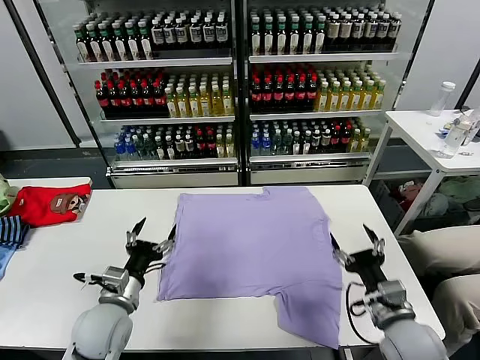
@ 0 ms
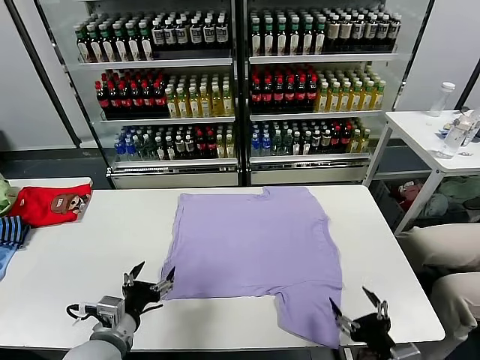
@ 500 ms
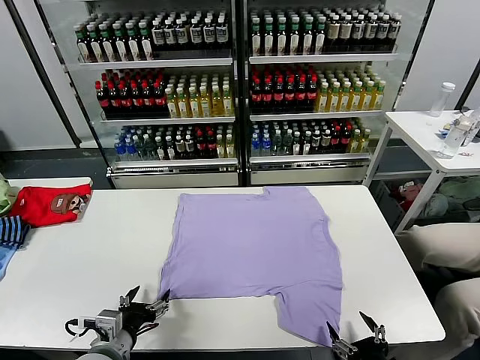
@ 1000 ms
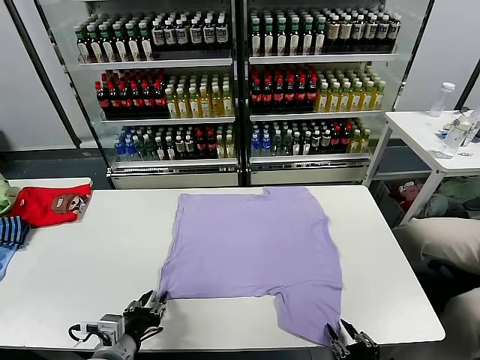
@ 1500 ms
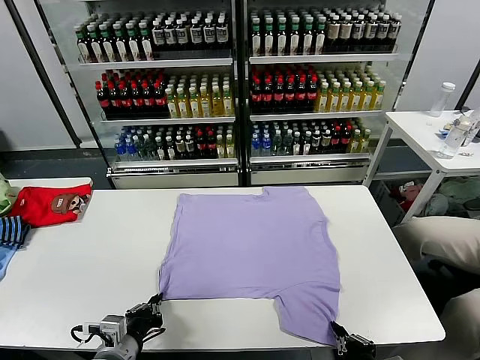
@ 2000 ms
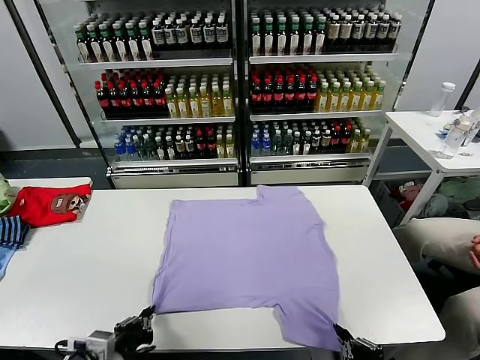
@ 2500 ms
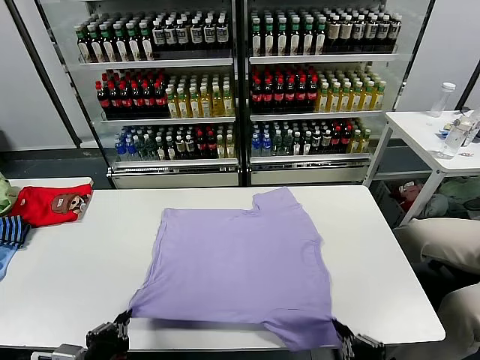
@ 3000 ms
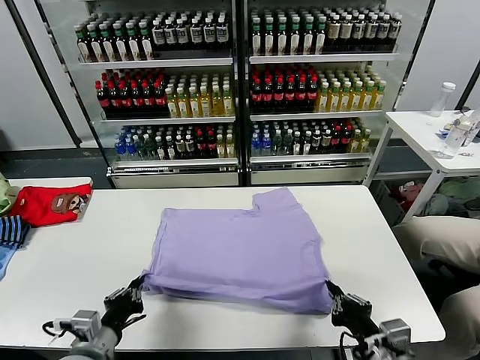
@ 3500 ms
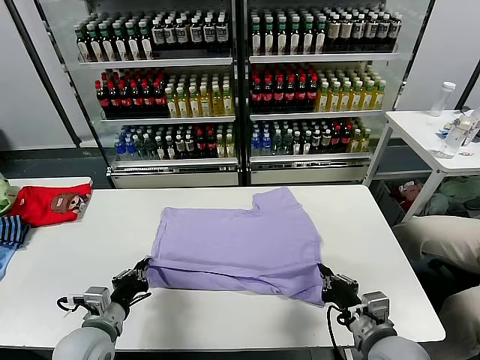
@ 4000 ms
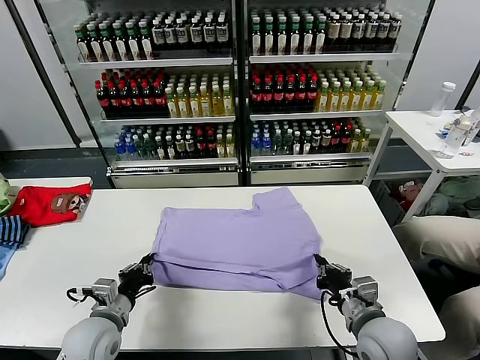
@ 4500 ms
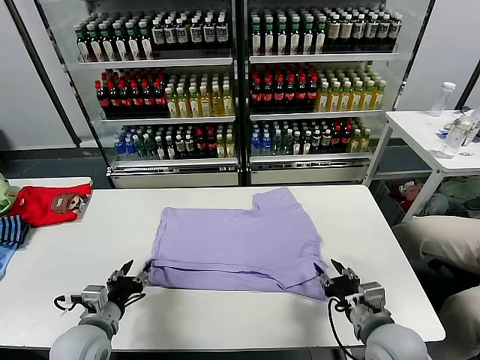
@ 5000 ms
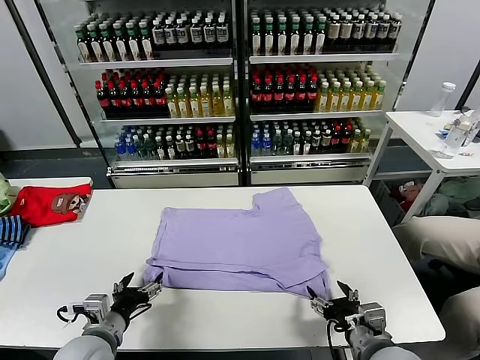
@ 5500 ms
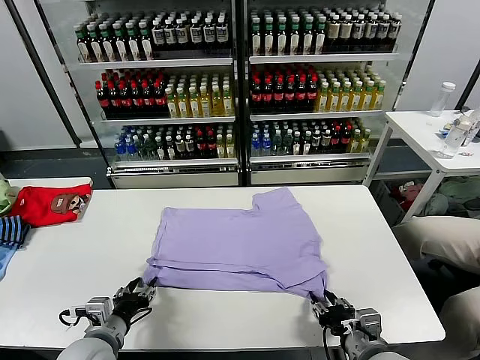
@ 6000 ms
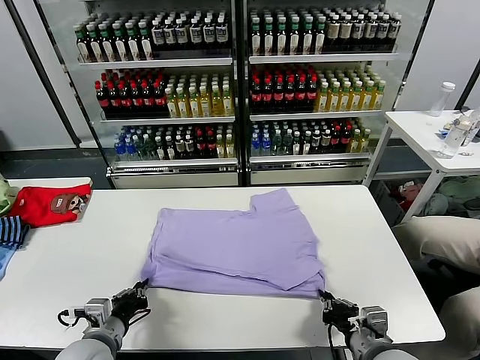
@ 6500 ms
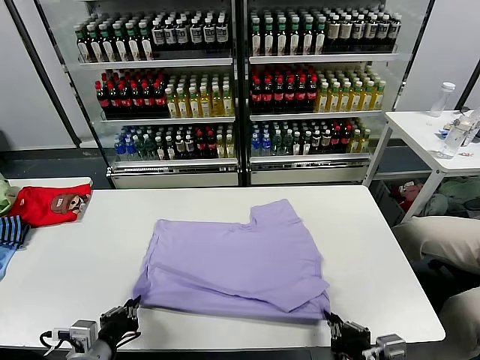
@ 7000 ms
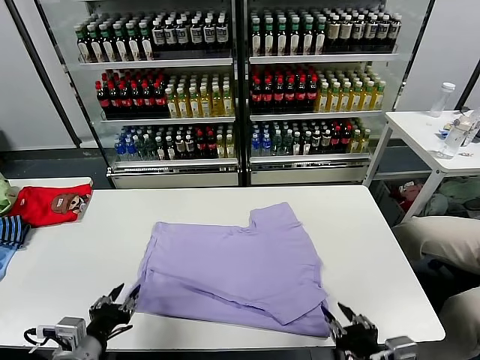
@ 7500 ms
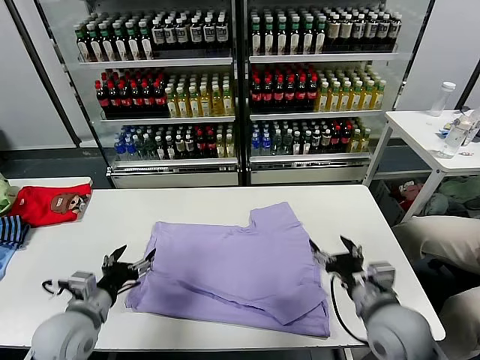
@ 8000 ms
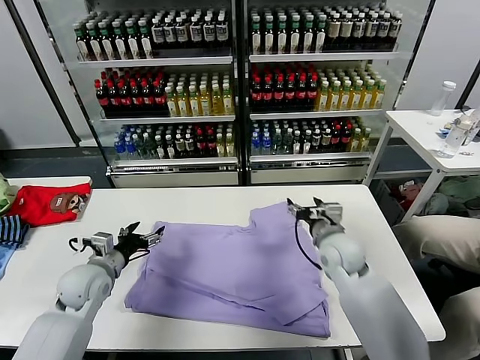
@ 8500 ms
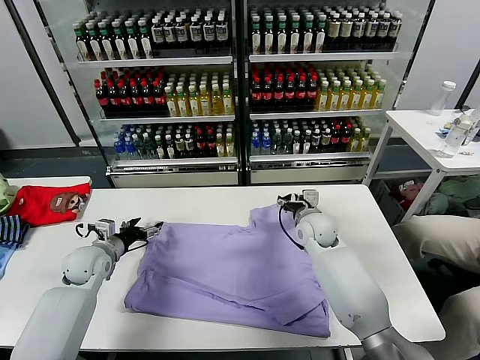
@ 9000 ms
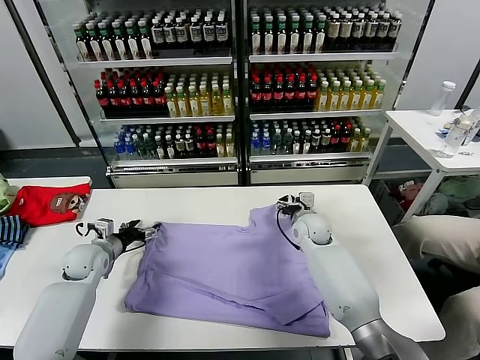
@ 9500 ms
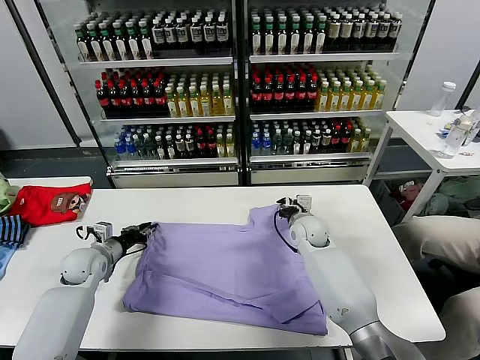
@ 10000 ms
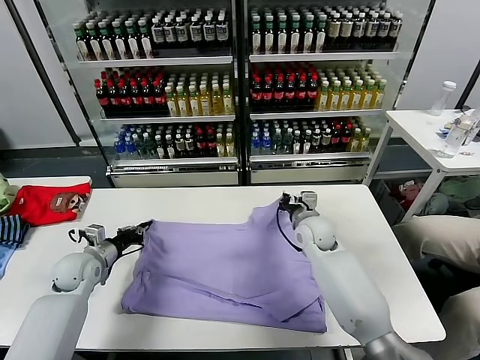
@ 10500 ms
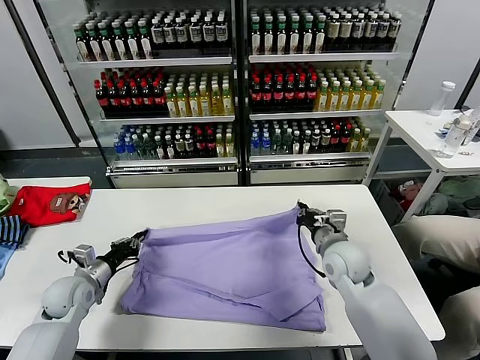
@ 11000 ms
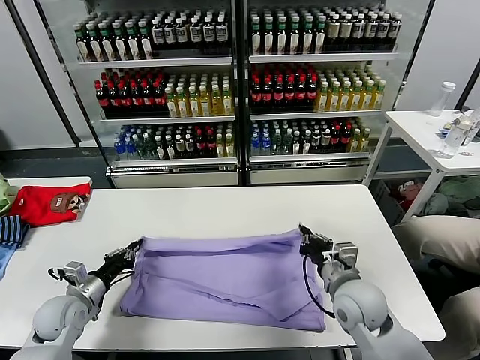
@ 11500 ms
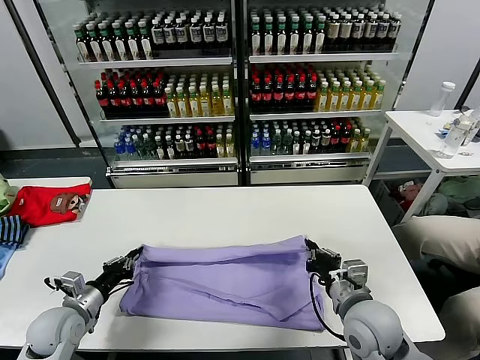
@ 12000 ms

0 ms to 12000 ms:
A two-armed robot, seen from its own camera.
Task of the whole recording: fold and organize the clothes.
Step, 0 ms to 2000 ms: use both grippers simultaneously to clamp the lower edge of the clothing fabric.
Step, 2500 ms to 5000 ms: use both grippers to drag the lower edge of the fabric forward and fold it over the upper edge.
Step, 5500 ms to 7500 ms: Drag the clothes downward with both gripper.
Step, 8000 ms to 10000 ms: use both grippers simultaneously to clamp the upper edge of the clothing fabric.
2000 ms to 4000 ms: The right gripper heads forward, covering about 10 cm. Meanwhile the left gripper shifts some 5 cm forward.
4000 ms to 6000 ms: The left gripper opens its fingers, while the right gripper opens, then closes once more.
6000 ms to 8000 ms: The left gripper shifts by approximately 5 cm, and opens up. Meanwhile the right gripper is displaced forward and upward by about 10 cm, and opens.
8000 ms to 10000 ms: The left gripper shifts some 20 cm forward and to the left, and closes, while the right gripper is displaced forward by about 25 cm, and closes.
10000 ms to 12000 ms: The right gripper goes roughly 25 cm backward, while the left gripper heads backward, covering roughly 15 cm.

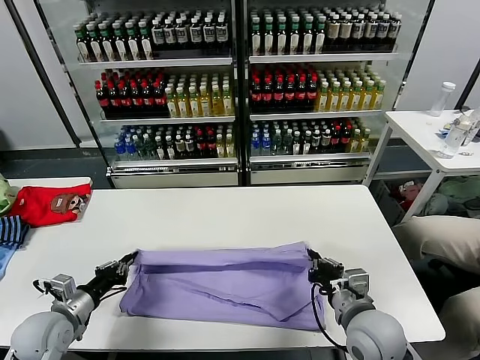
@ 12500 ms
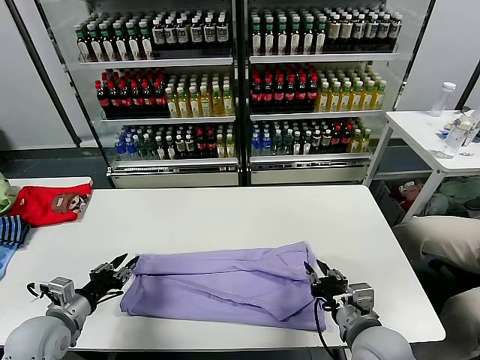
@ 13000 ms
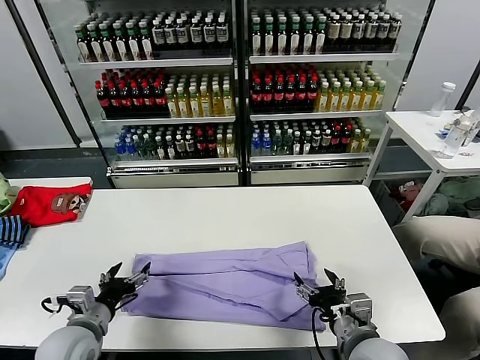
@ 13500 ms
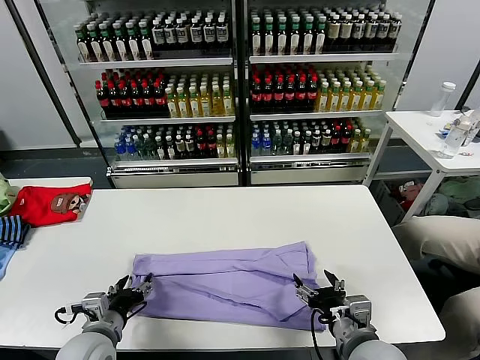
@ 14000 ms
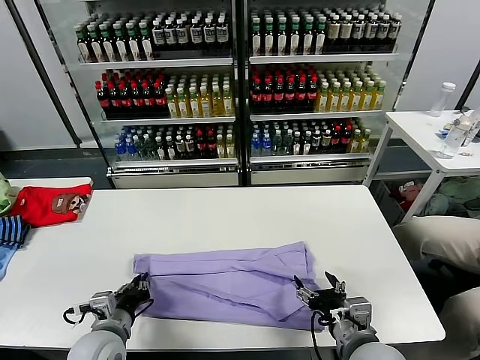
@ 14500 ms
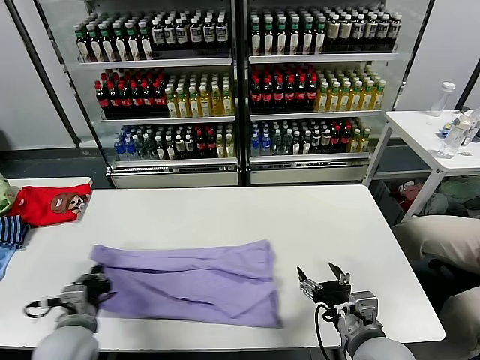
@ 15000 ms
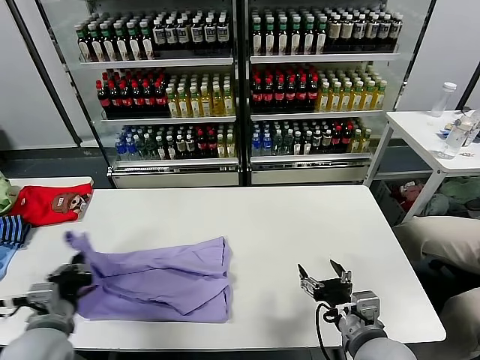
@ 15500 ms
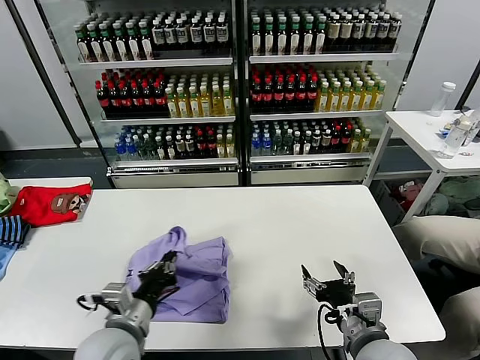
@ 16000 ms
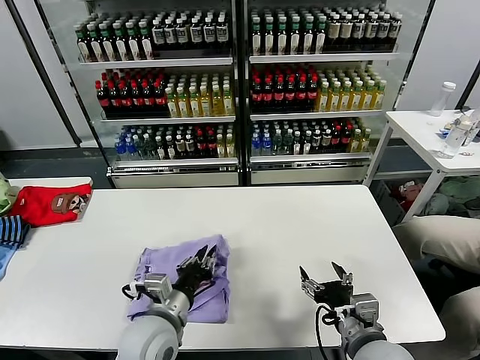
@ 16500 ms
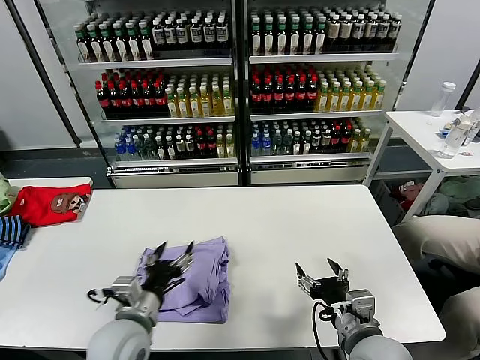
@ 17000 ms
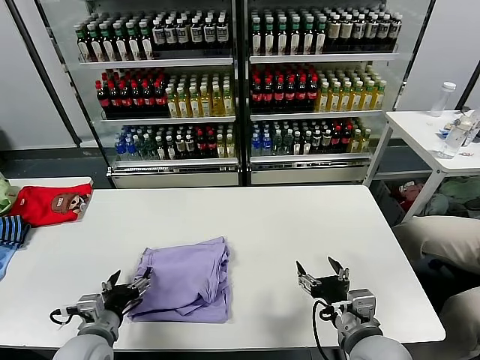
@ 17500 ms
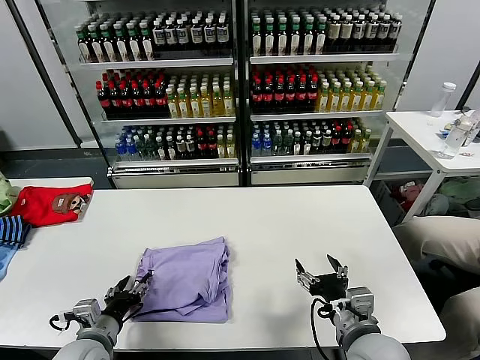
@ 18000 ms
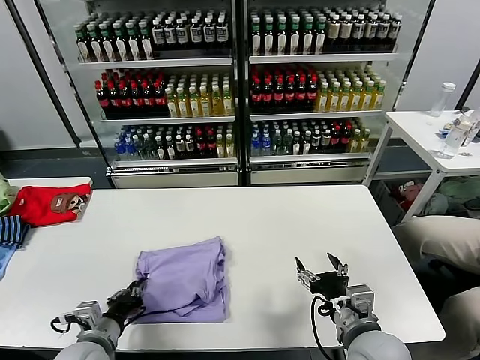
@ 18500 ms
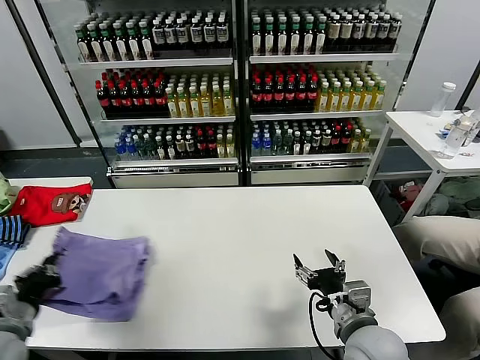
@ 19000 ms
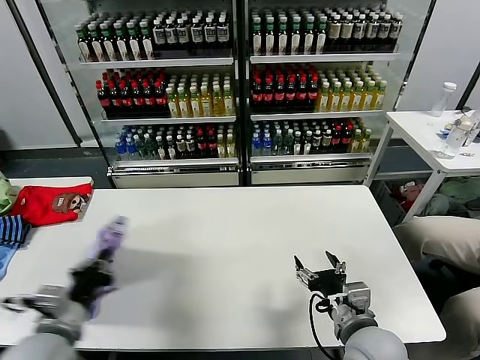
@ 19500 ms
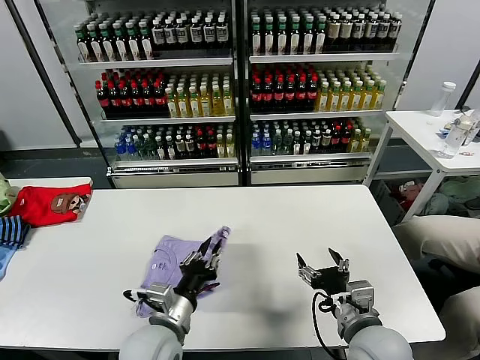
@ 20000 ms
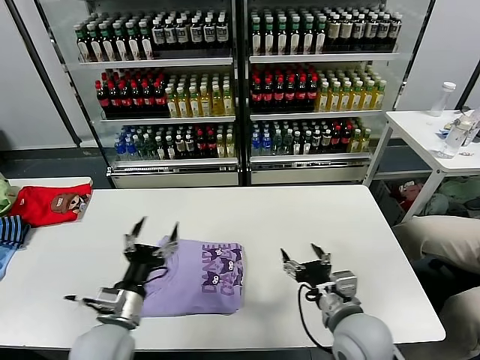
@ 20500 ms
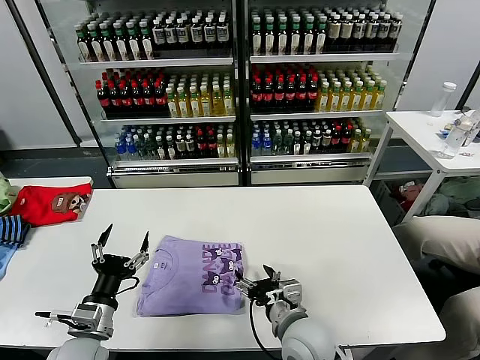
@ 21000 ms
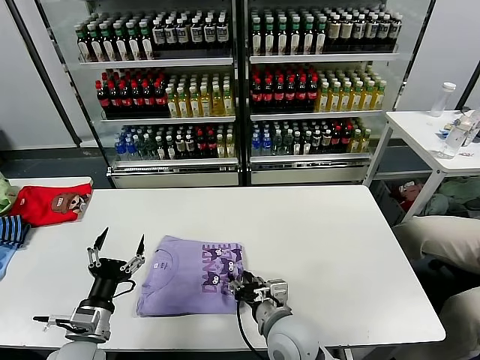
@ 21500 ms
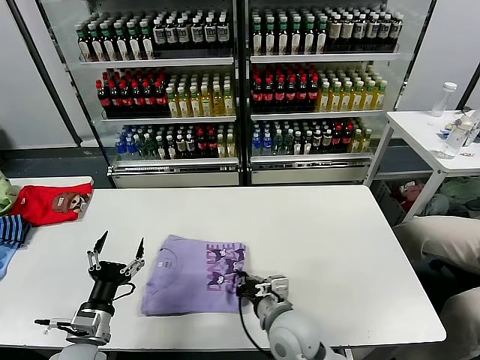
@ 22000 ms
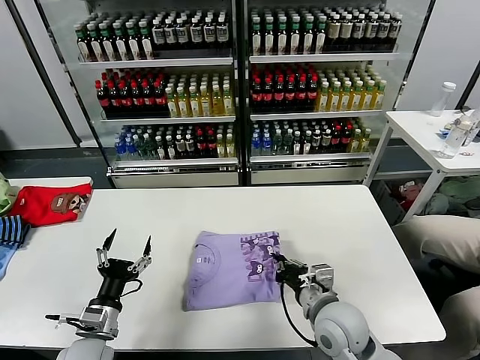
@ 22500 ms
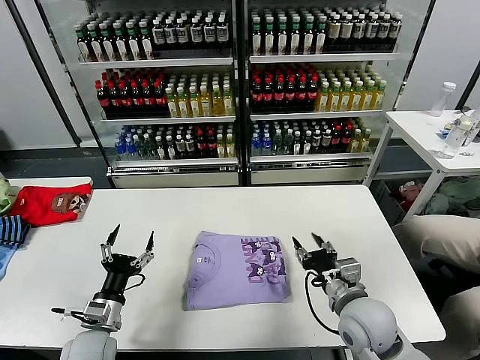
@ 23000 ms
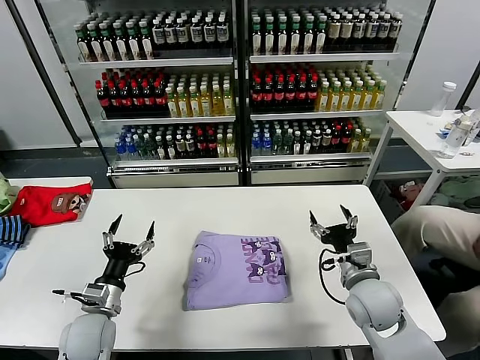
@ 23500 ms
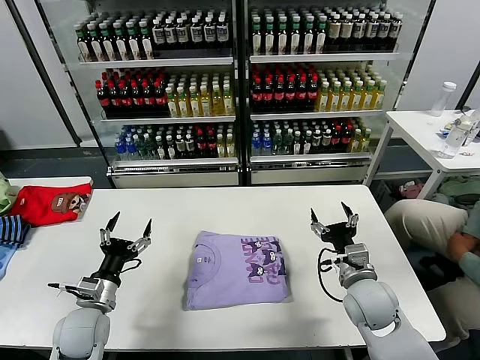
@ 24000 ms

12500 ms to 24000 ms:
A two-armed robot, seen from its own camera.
Task of the whole recording: fold and organize the clothes.
Step, 13500 ms to 14500 ms: use the left gripper to clamp the left edge of the fabric.
Step, 15000 ms to 16500 ms: use the left gripper to drag the left edge of the fabric to the left and folds it over the right edge.
Step, 17000 ms to 20000 ms: Flip the folded clothes over with left gripper.
Step, 20500 ms to 22500 ms: Drag the clothes to the center of the table.
12500 ms to 14500 ms: The left gripper goes roughly 10 cm to the right, and opens, then closes again. The right gripper opens its fingers.
14500 ms to 16500 ms: The left gripper is displaced to the right and upward by roughly 15 cm.
16500 ms to 18500 ms: The left gripper goes about 15 cm to the left and downward, and opens, then closes once more.
18500 ms to 20000 ms: The left gripper shifts about 15 cm to the right.
20000 ms to 22000 ms: The right gripper travels to the left, downward and forward by roughly 15 cm, and closes; the left gripper travels to the left by some 15 cm, and opens up.
22000 ms to 24000 ms: The right gripper goes roughly 15 cm to the right, and opens its fingers, while the left gripper moves forward, roughly 5 cm.

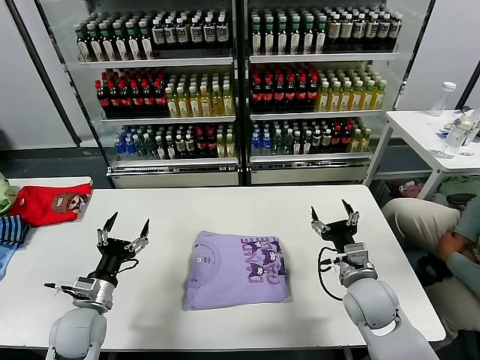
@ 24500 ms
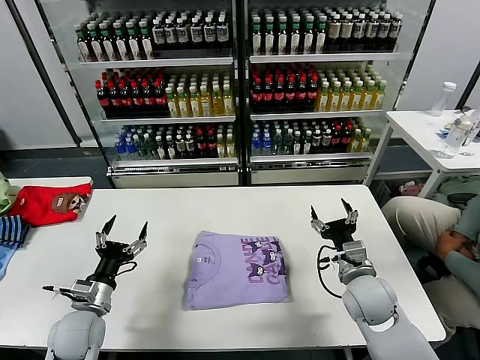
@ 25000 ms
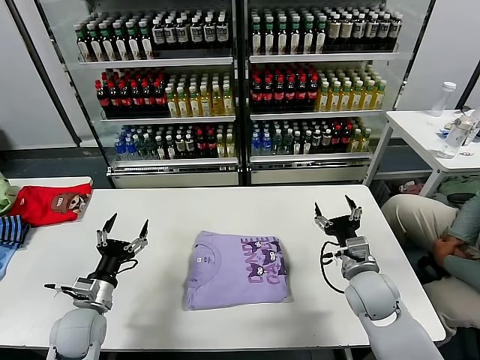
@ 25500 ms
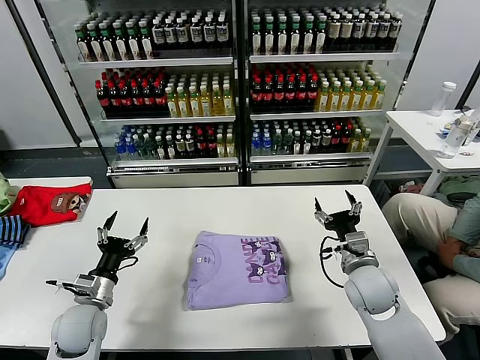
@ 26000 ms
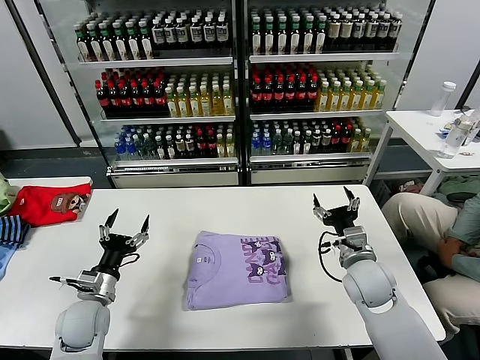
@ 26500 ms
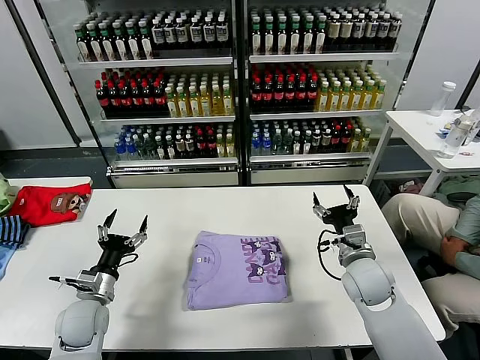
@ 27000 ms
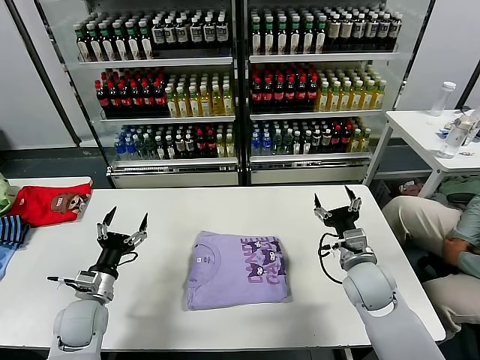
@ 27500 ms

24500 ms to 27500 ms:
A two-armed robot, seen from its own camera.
Task of the whole recording: fold and organize the clothes.
24500 ms to 27500 ms: The grippers move only a little.
